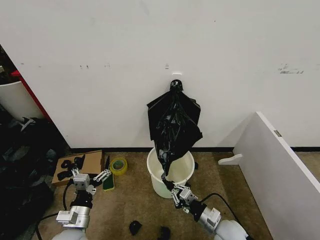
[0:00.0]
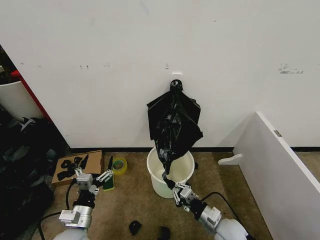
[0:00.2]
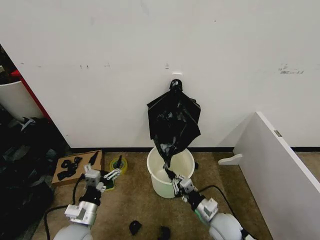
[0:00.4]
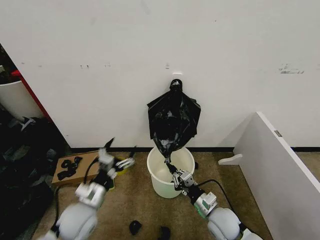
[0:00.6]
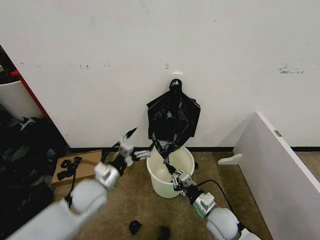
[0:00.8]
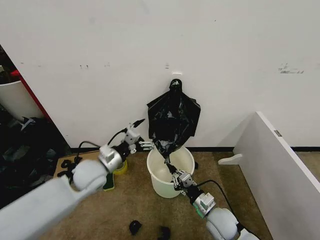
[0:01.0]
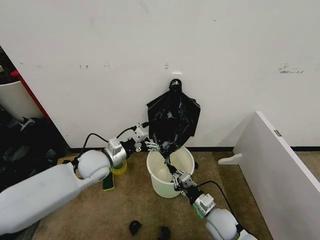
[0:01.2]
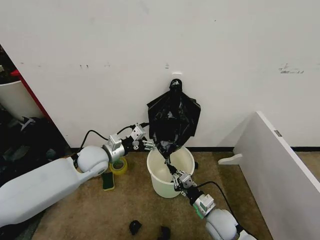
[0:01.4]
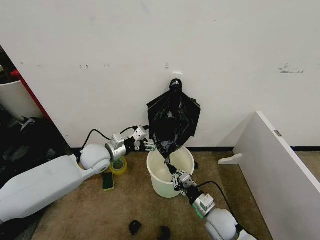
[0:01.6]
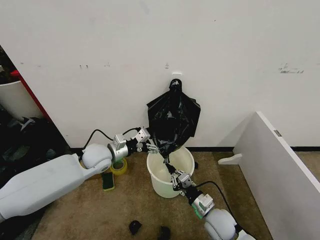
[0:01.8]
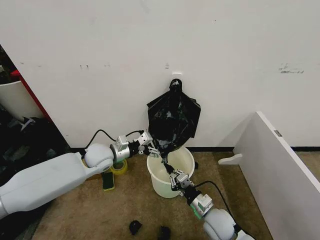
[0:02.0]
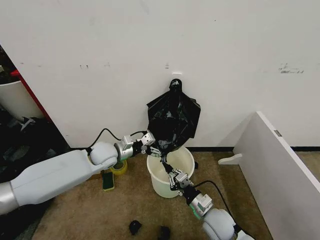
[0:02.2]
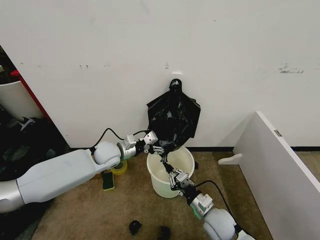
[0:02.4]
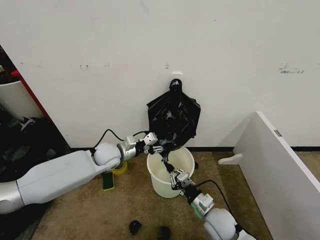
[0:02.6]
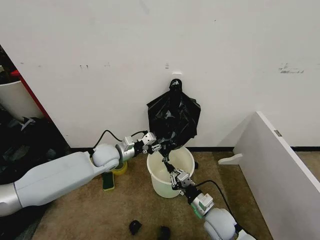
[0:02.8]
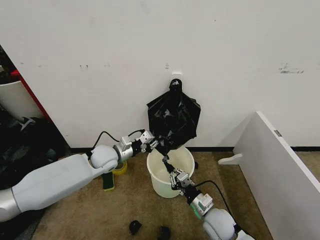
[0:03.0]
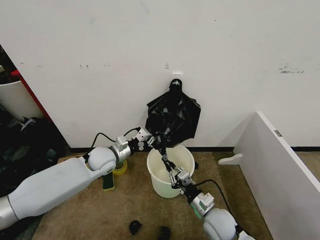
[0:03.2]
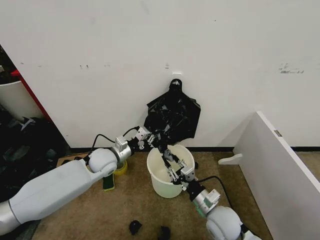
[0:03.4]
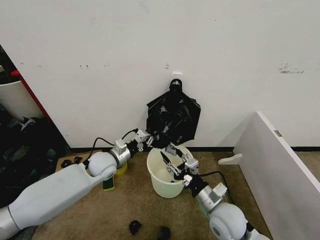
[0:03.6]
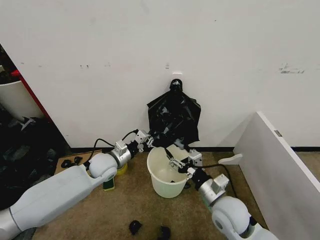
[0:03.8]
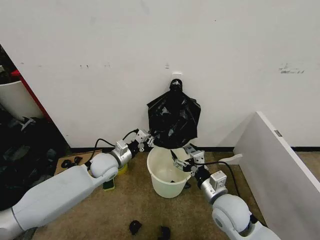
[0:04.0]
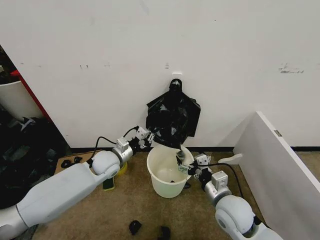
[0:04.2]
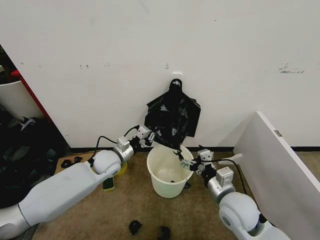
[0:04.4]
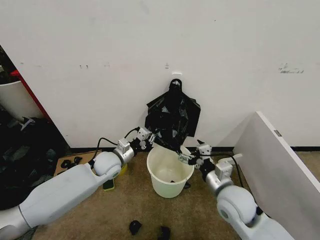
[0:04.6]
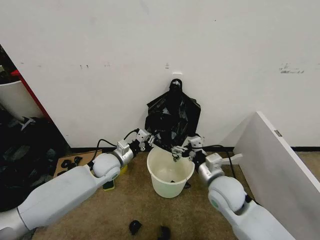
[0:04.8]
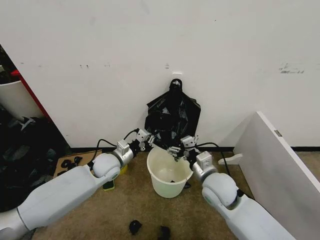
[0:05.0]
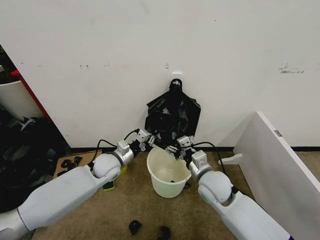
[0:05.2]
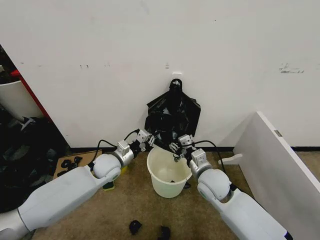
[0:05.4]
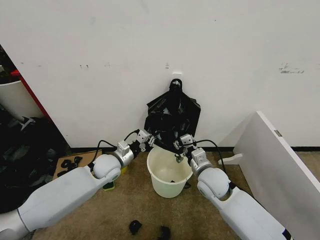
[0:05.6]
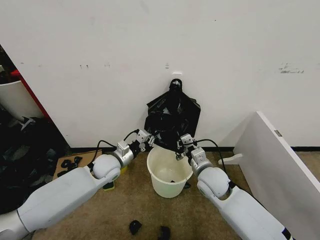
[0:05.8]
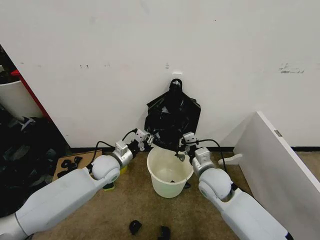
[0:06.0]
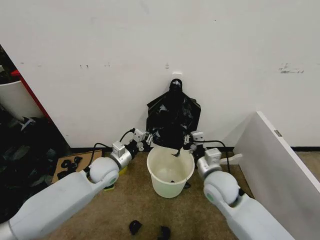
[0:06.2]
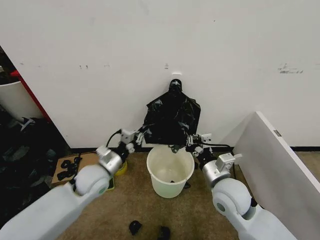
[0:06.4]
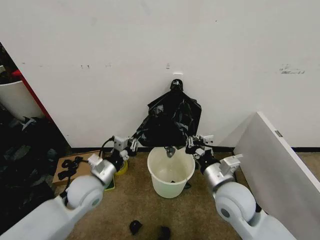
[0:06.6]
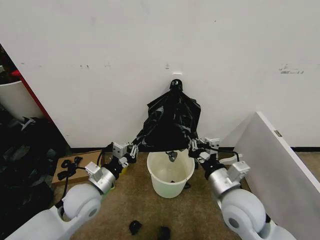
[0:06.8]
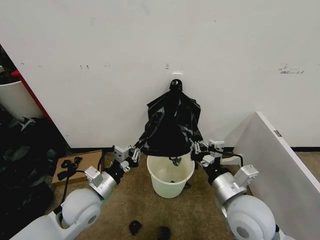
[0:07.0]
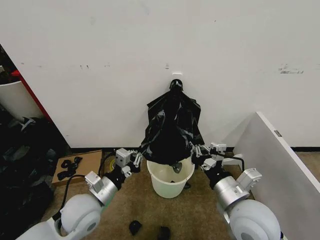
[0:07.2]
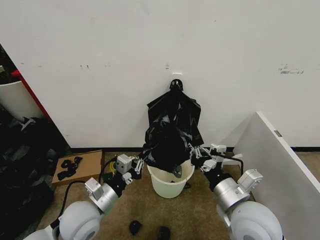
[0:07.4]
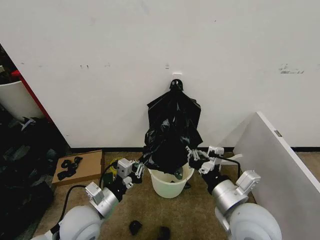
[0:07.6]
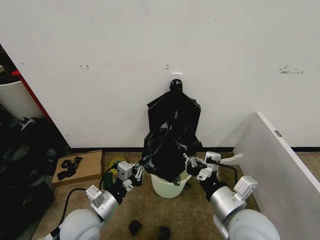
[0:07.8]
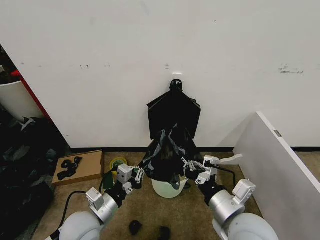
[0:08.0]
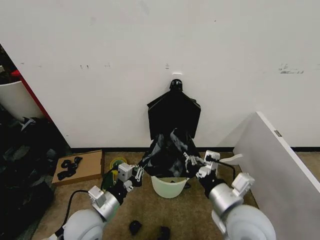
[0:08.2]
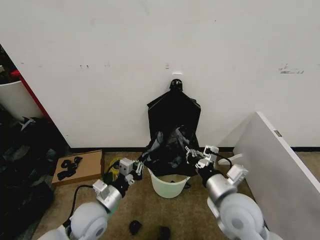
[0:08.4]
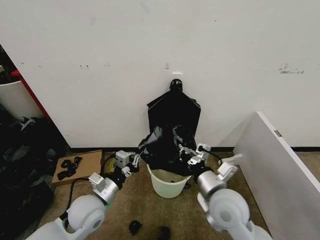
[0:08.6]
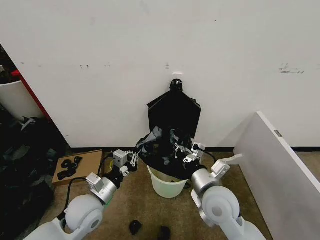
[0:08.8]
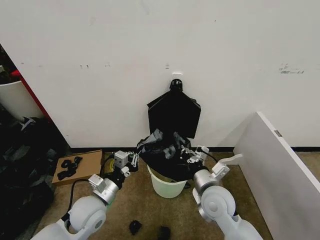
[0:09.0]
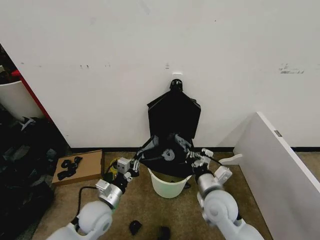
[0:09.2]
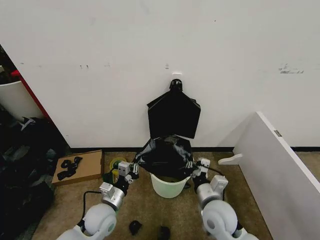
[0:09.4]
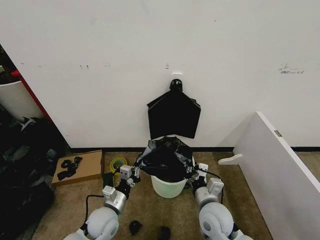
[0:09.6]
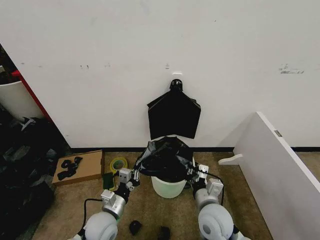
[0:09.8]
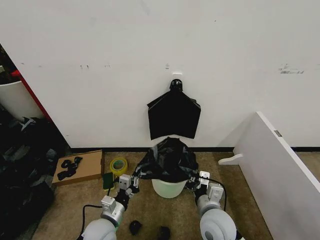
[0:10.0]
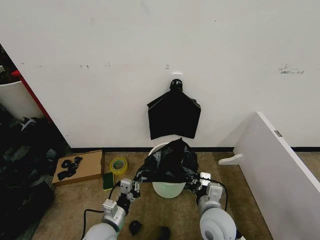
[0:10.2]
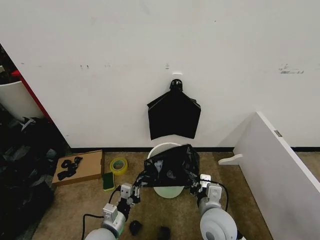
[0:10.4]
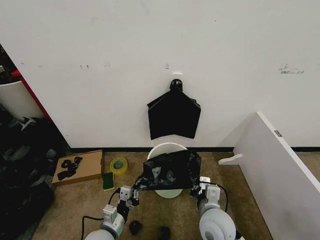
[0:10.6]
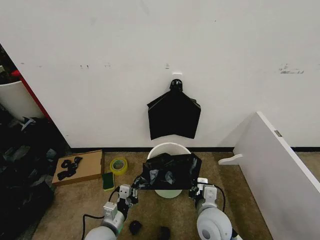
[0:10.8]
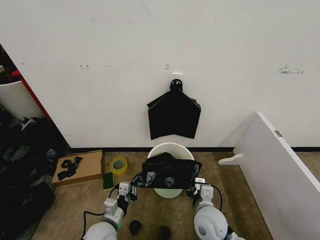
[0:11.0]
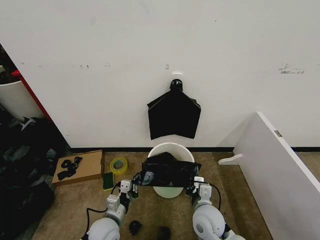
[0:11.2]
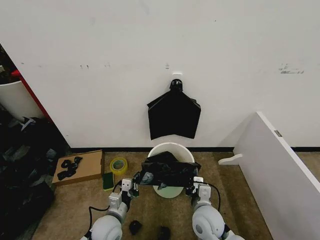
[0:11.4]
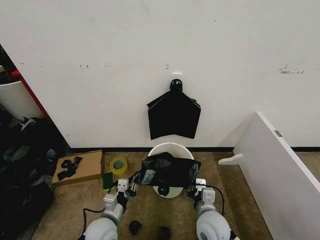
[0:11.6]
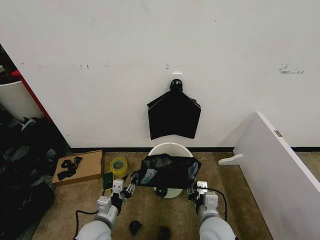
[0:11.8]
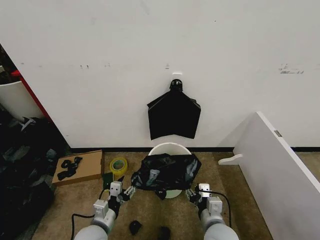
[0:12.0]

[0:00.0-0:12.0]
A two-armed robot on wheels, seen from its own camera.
Task of the whole recording: Place the garbage bag over the trash bin.
0:00.0 to 0:01.6: The left gripper shifts some 25 cm forward and upward.
0:01.6 to 0:03.0: The left gripper closes.
0:03.0 to 0:04.4: The right gripper travels upward by approximately 10 cm, and opens its fingers.
0:04.4 to 0:06.0: The right gripper heads forward, covering about 10 cm, and closes its fingers.
0:06.0 to 0:07.6: The right gripper moves backward and upward, some 15 cm. Meanwhile the left gripper is displaced backward by approximately 20 cm.
0:07.6 to 0:09.0: The right gripper shifts approximately 10 cm forward and downward.
0:09.0 to 0:10.4: The left gripper is displaced downward and backward by approximately 10 cm, while the right gripper moves backward, about 5 cm.
0:10.4 to 0:12.0: The right gripper opens its fingers. The left gripper opens its fingers.

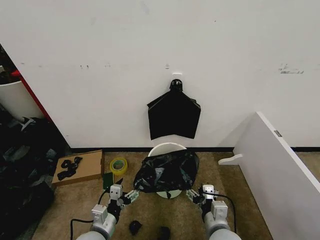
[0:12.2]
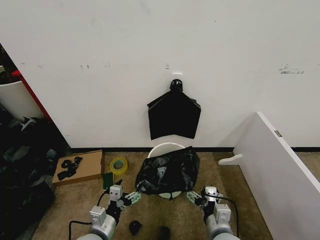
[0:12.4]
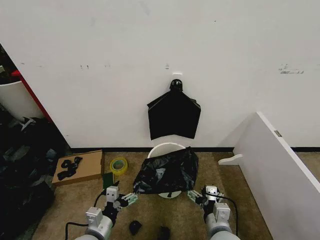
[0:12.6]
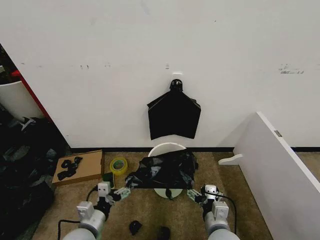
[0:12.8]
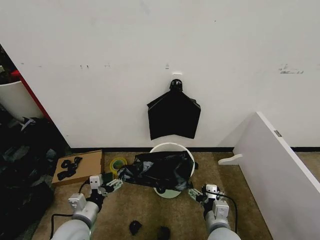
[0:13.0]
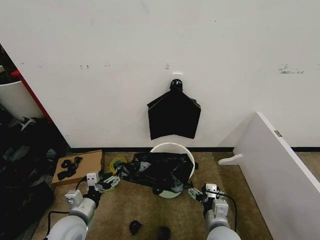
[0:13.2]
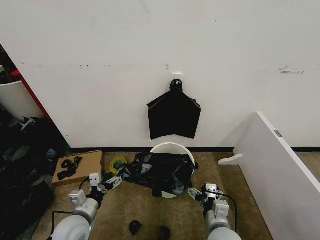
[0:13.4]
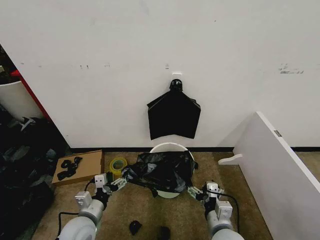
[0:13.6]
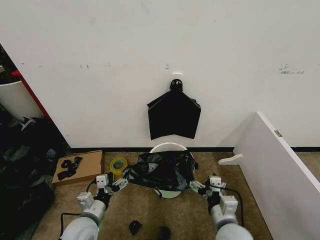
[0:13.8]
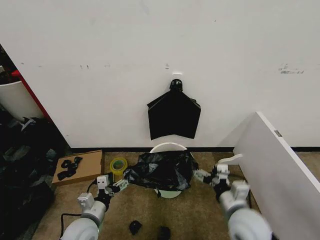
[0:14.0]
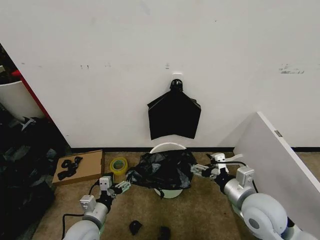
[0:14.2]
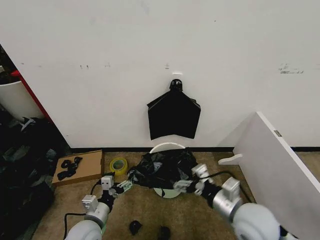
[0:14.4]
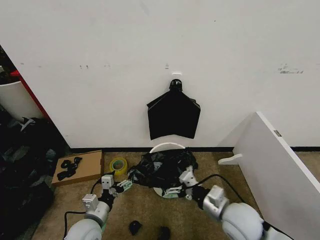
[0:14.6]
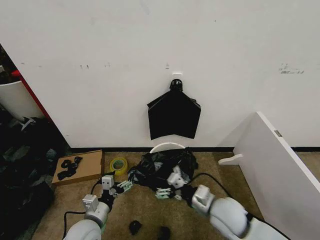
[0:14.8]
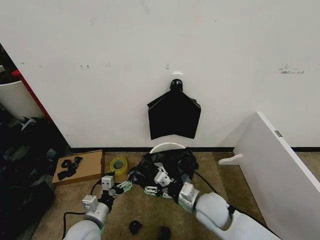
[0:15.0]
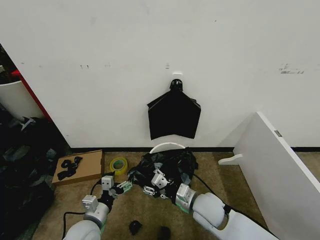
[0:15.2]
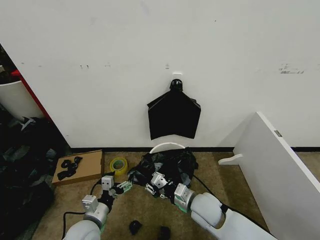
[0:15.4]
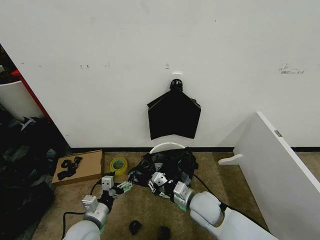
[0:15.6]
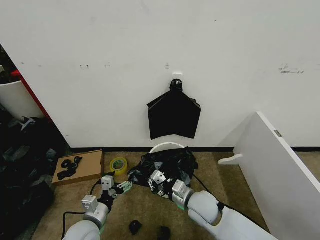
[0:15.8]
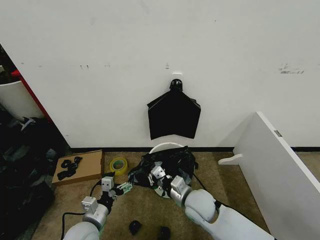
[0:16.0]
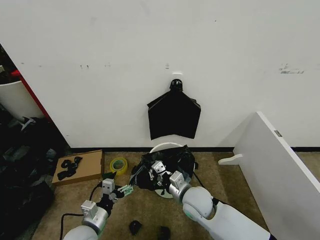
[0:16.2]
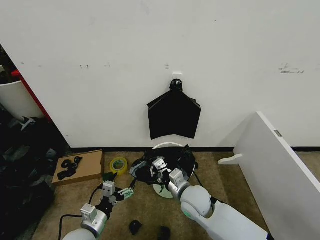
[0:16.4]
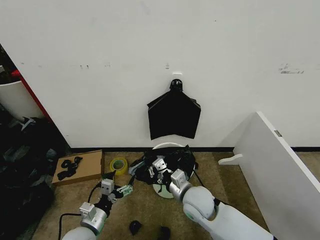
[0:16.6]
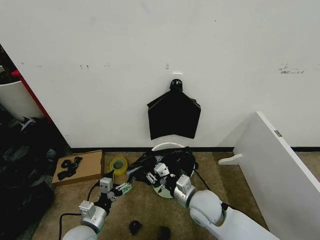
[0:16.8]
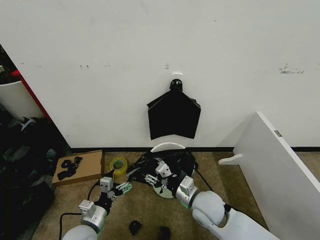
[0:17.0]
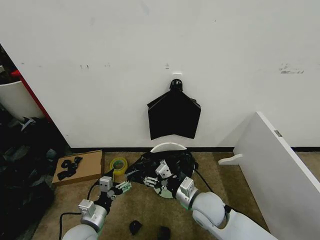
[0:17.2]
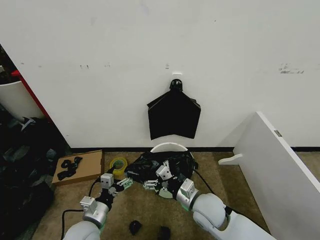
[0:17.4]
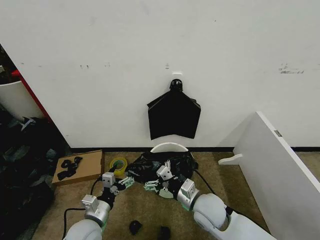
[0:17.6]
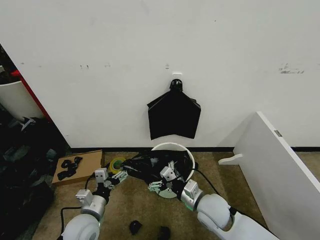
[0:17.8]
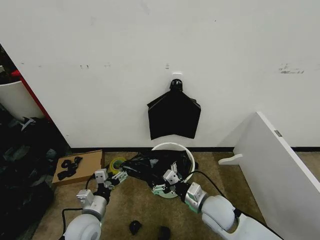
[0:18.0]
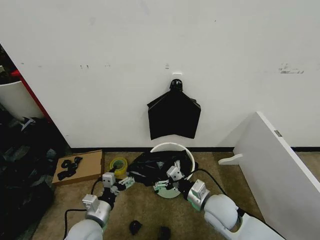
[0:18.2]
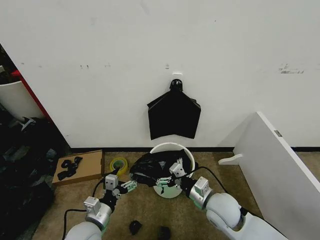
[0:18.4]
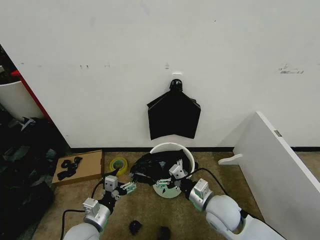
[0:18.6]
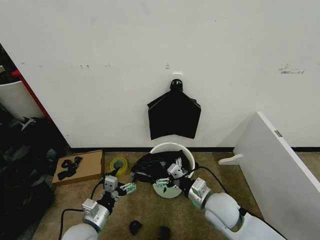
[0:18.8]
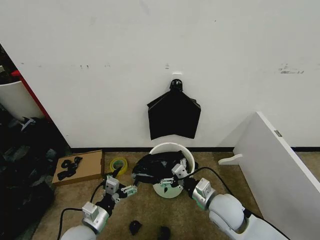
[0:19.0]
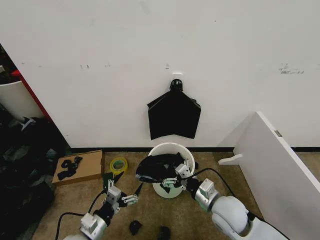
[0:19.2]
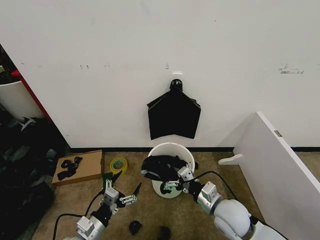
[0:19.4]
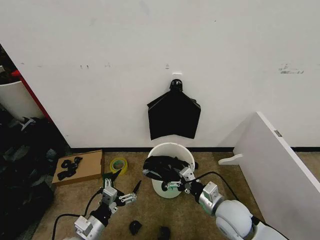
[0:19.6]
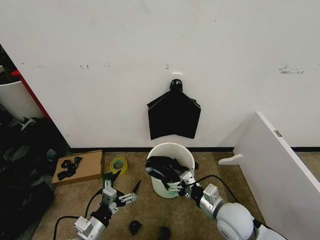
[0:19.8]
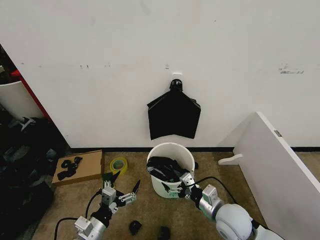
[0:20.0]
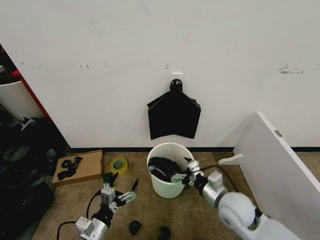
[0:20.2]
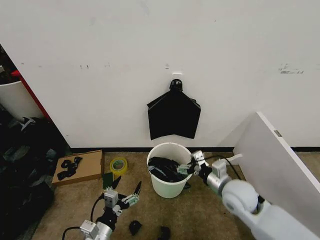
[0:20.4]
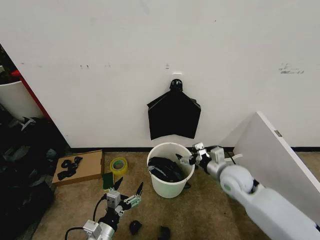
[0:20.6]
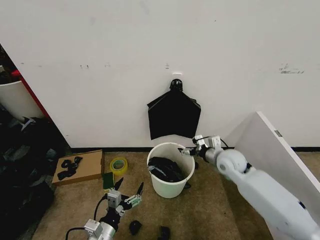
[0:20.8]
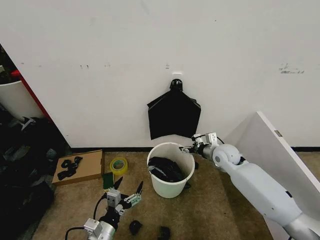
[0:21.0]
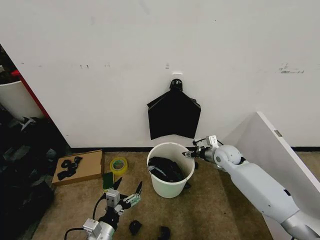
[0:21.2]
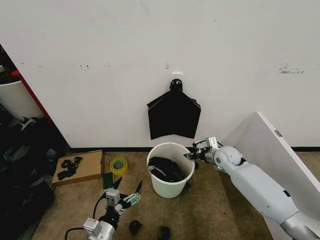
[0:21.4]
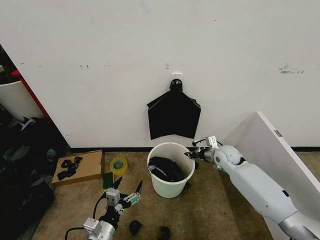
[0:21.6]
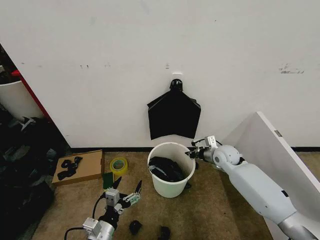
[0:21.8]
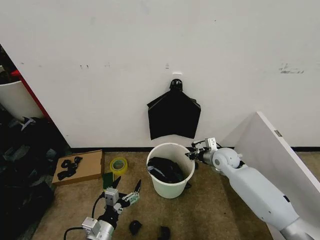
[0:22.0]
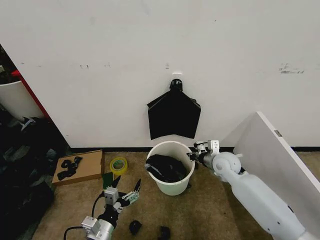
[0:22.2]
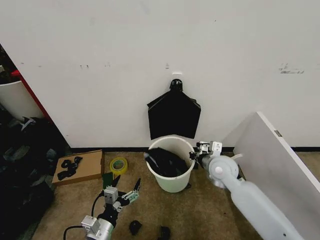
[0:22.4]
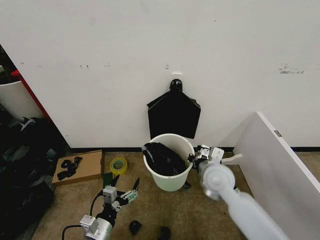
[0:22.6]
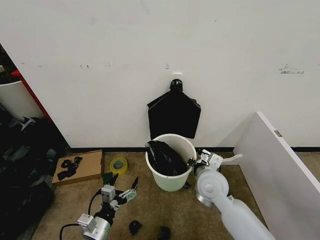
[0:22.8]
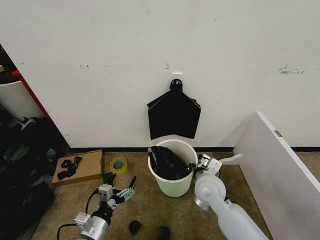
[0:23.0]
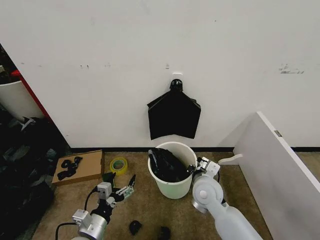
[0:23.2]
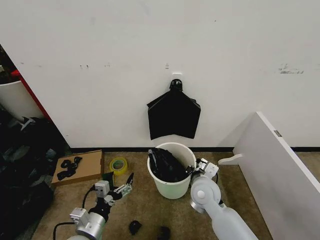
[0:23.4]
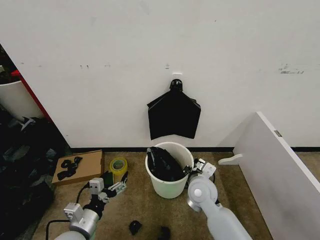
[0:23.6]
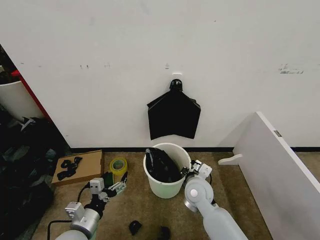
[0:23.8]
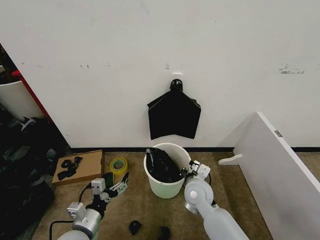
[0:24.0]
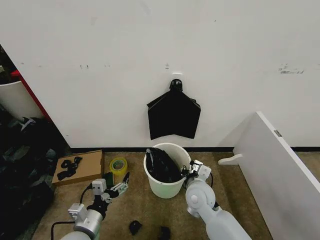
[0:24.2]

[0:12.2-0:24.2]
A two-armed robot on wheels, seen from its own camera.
Task of the whole recording: Place the garbage bag over the trash bin.
0:12.2 to 0:13.8: The left gripper shifts by about 5 cm.
0:13.8 to 0:15.2: The right gripper heads forward, covering about 10 cm, and closes up.
0:15.2 to 0:16.6: The right gripper closes up.
0:16.6 to 0:18.2: The right gripper is displaced to the right by approximately 5 cm, and opens up.
0:18.2 to 0:19.8: The left gripper travels backward by some 5 cm.
0:19.8 to 0:21.2: The right gripper is displaced forward by approximately 25 cm, and closes its fingers.
0:21.2 to 0:22.6: The right gripper travels backward, to the left and upward by about 15 cm, and closes up.
0:22.6 to 0:24.2: The right gripper moves downward and to the left, roughly 10 cm, and opens.
